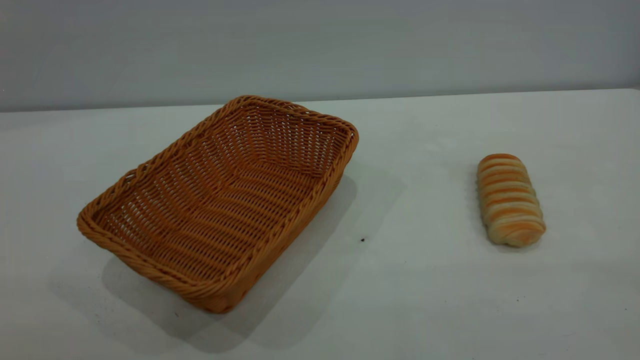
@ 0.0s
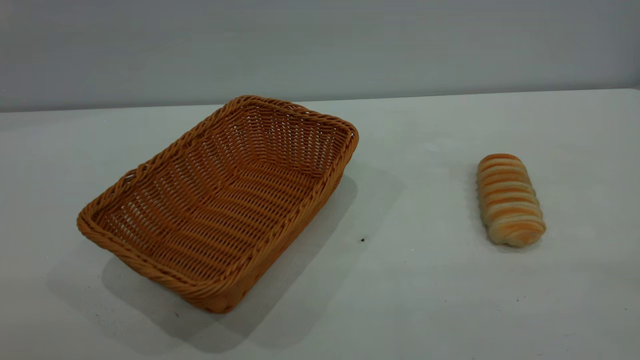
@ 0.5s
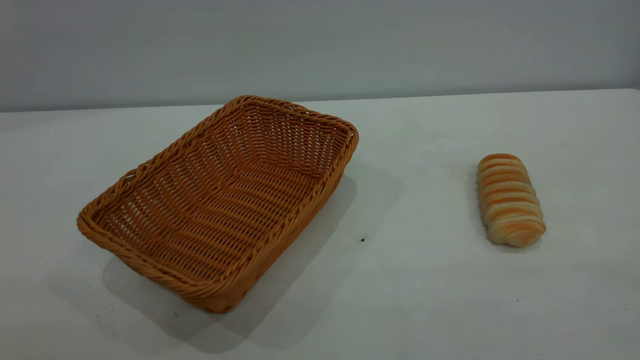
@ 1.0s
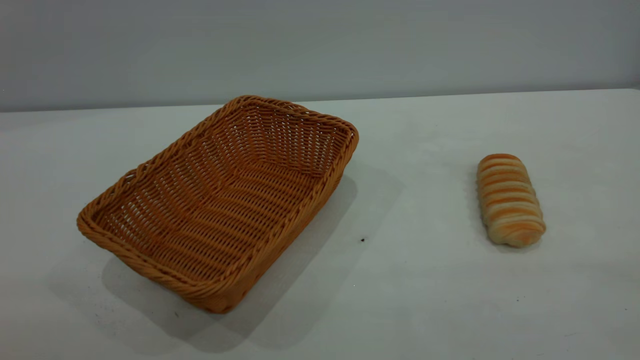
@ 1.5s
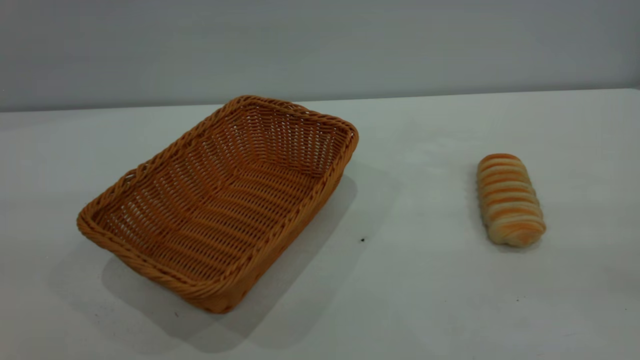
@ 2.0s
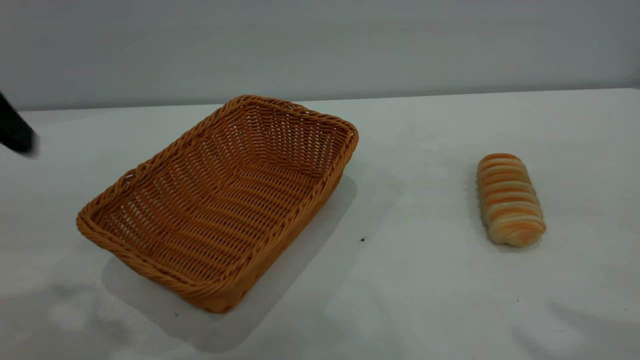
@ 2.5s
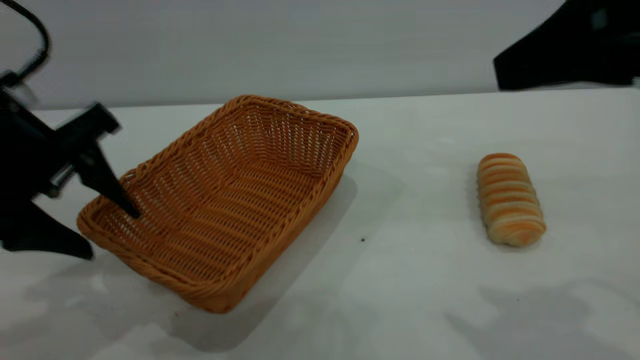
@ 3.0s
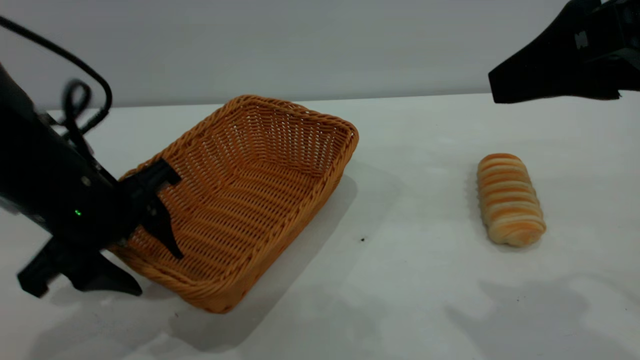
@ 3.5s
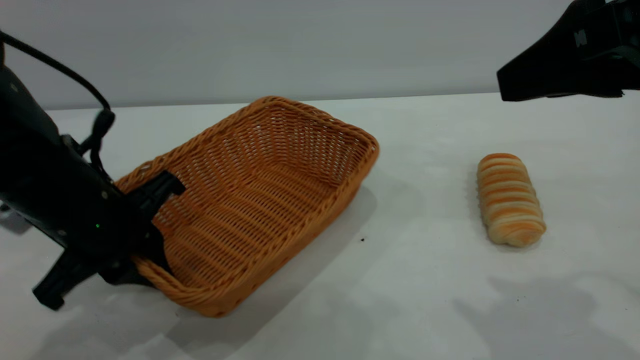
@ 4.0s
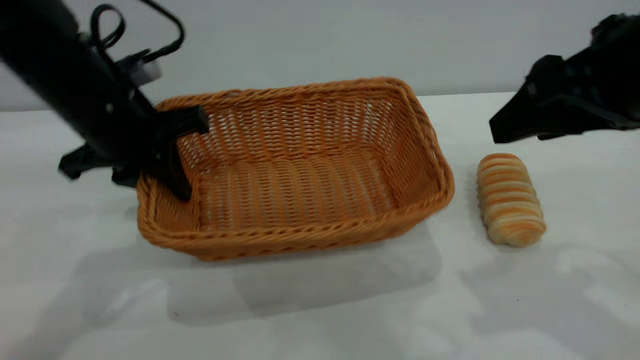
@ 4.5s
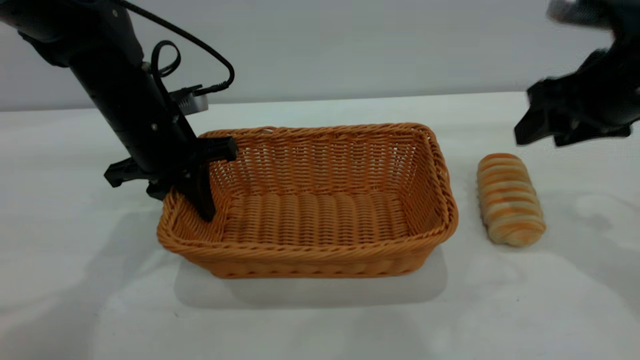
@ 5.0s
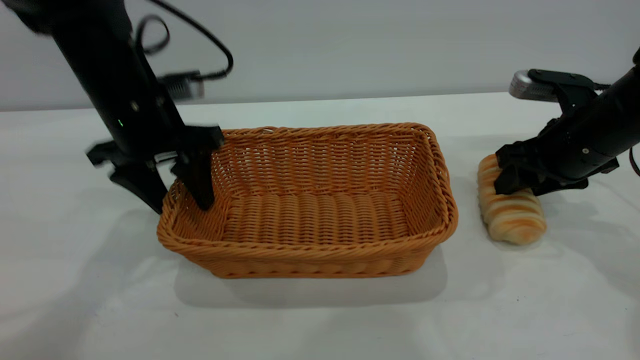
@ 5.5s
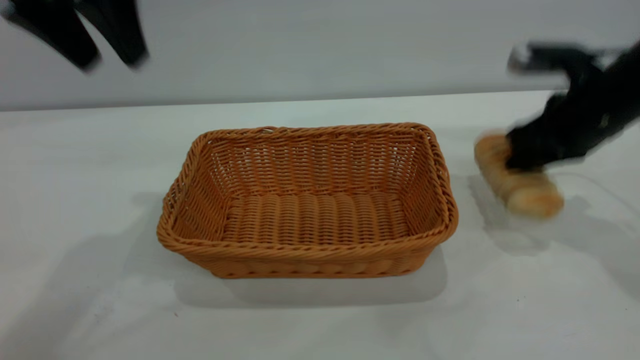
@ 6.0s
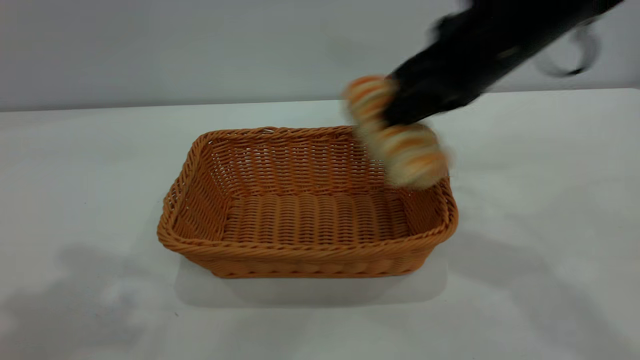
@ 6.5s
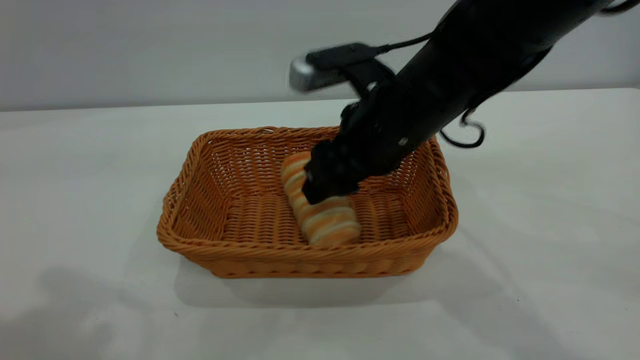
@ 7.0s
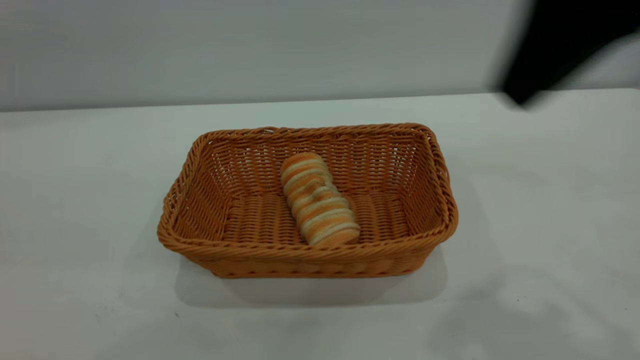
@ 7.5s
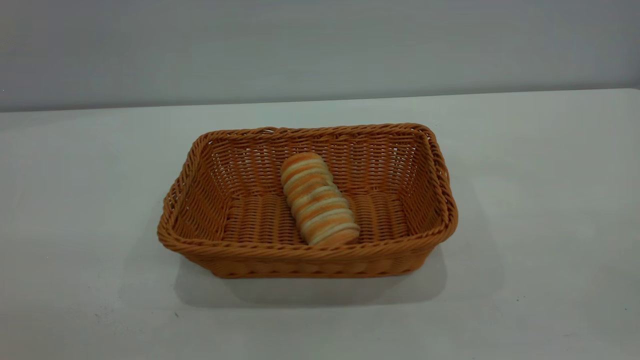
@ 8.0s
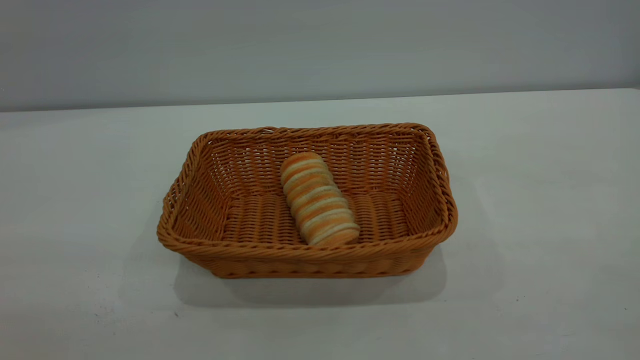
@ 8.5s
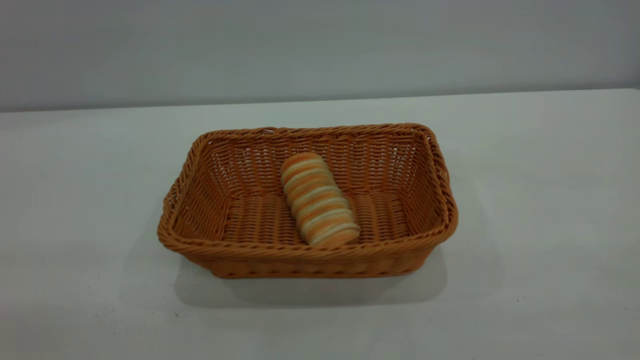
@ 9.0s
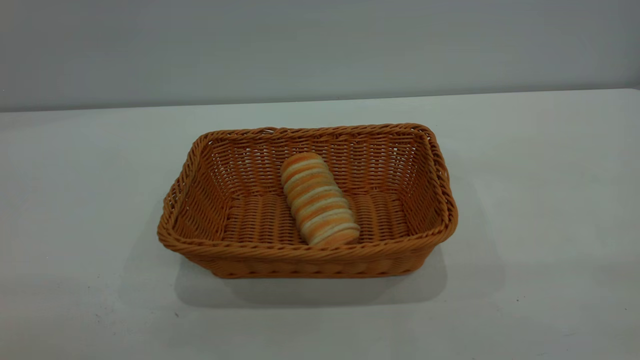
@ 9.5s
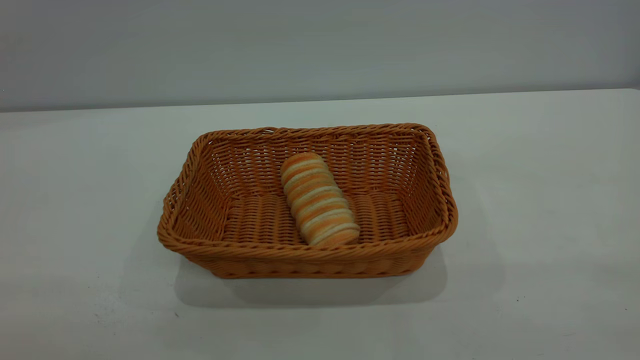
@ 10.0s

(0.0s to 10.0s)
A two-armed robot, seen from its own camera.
Task of the whole recording: One hand grasps the yellow basket and places it in the middle of the table, while the other hand picks up the long bread and puts it into the yellow basket.
Step, 0.0s - 5.5s: Move the basket to the center of view.
Step, 6.5s - 7.0s: place the bread into the basket.
2.0s - 4.0s: The left gripper travels downward and forward by some 30 cm, and closes, while the right gripper heads forward and downward, covering about 15 cm.
4.0s - 6.0s: The right gripper moves forward and downward, about 20 cm, and closes up. The left gripper swings up and down, some 20 cm each way, with 2 reversals, and opens up.
6.0s - 8.0s: The left gripper is displaced backward by some 30 cm, while the right gripper travels backward and upward by about 40 cm, and opens its fingers.
